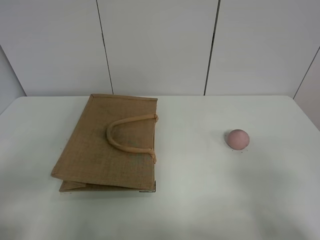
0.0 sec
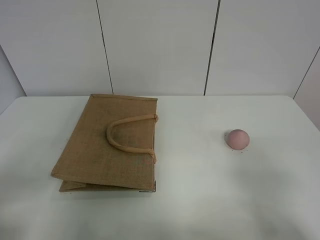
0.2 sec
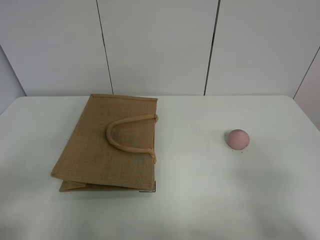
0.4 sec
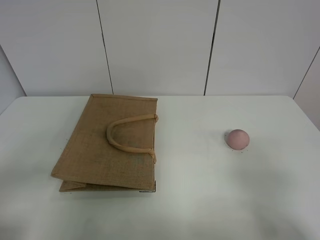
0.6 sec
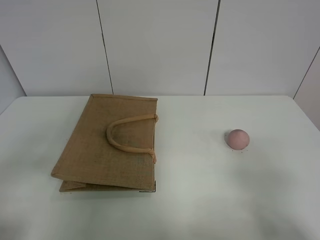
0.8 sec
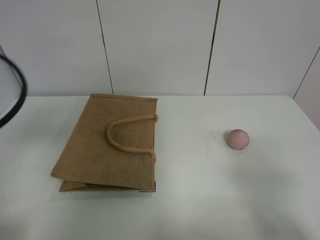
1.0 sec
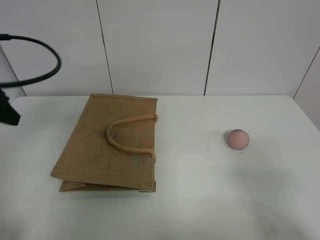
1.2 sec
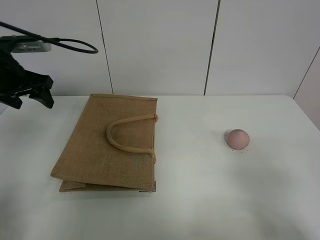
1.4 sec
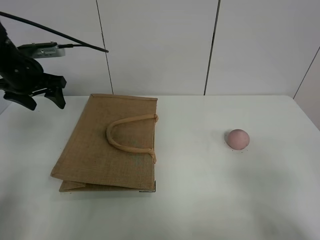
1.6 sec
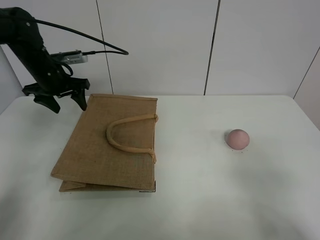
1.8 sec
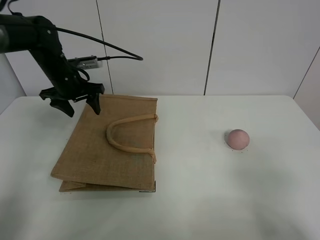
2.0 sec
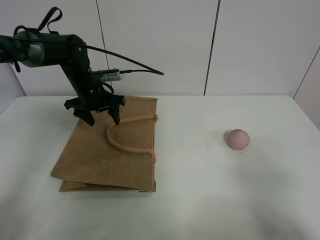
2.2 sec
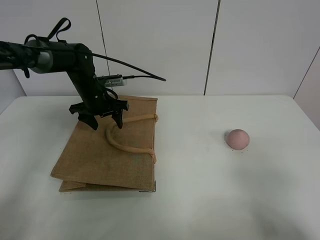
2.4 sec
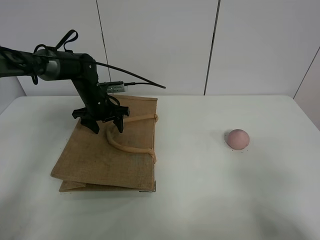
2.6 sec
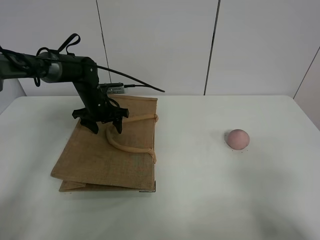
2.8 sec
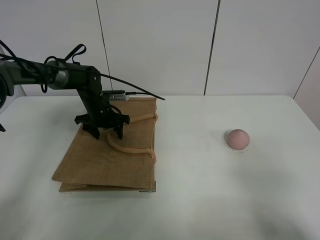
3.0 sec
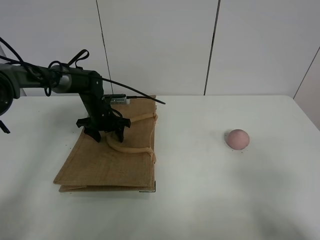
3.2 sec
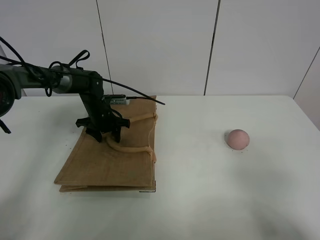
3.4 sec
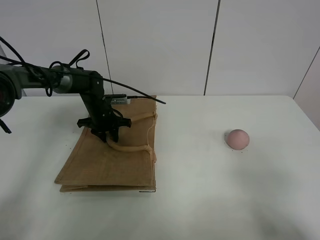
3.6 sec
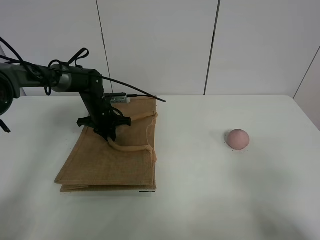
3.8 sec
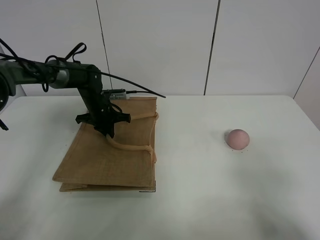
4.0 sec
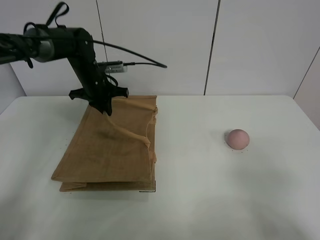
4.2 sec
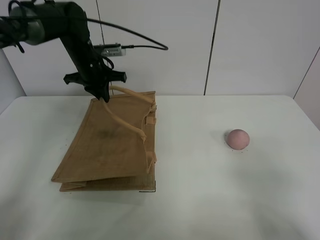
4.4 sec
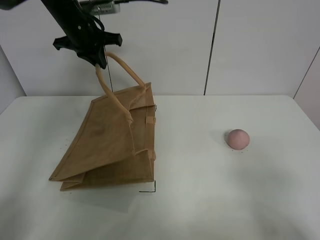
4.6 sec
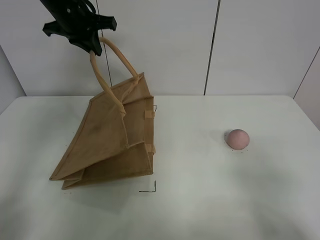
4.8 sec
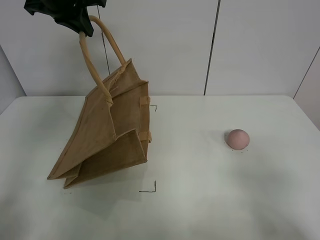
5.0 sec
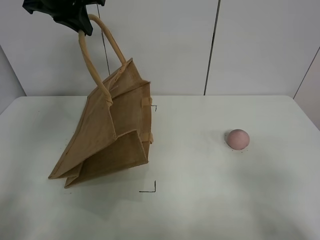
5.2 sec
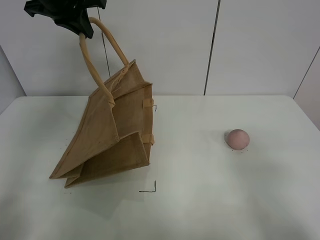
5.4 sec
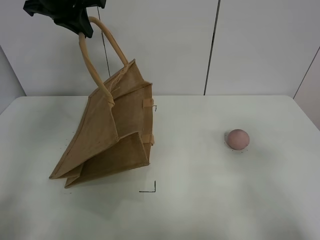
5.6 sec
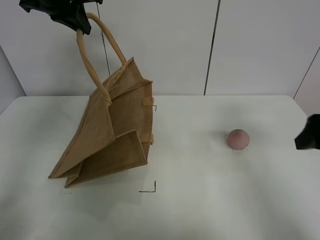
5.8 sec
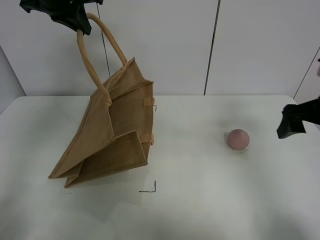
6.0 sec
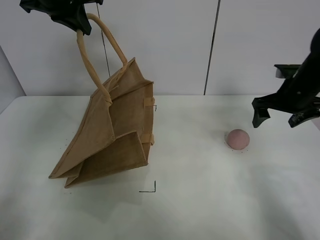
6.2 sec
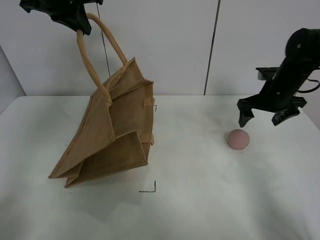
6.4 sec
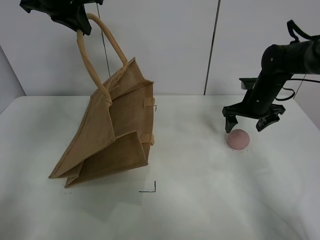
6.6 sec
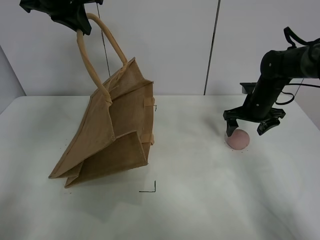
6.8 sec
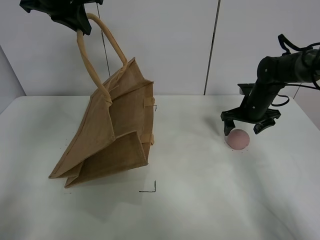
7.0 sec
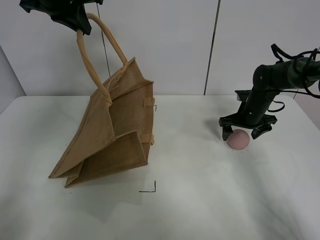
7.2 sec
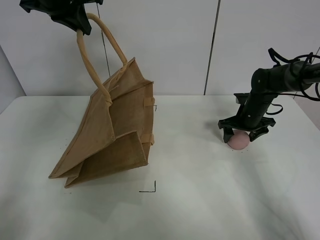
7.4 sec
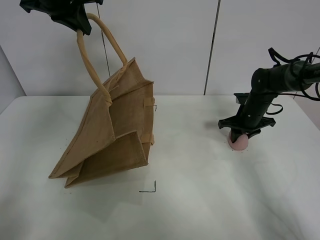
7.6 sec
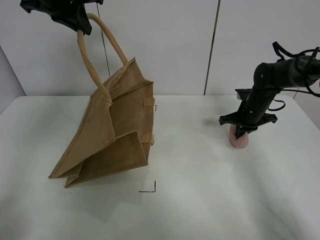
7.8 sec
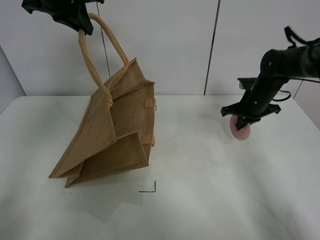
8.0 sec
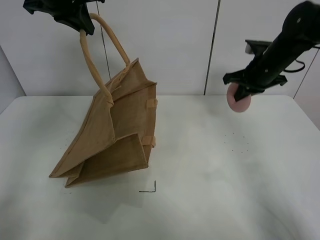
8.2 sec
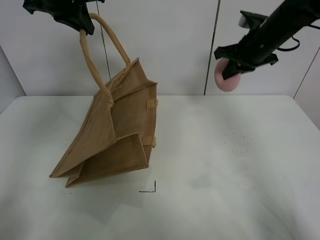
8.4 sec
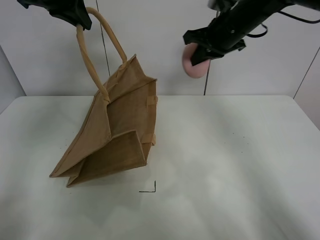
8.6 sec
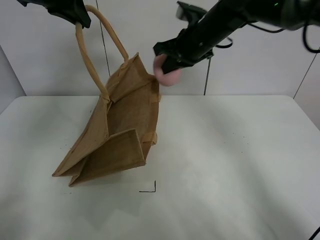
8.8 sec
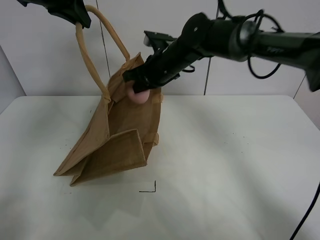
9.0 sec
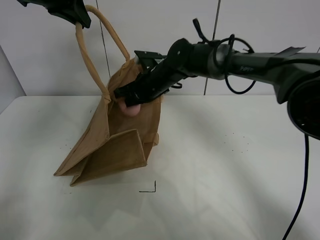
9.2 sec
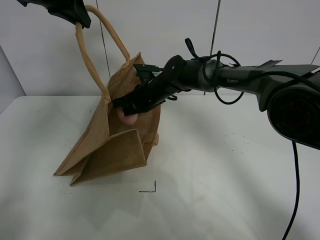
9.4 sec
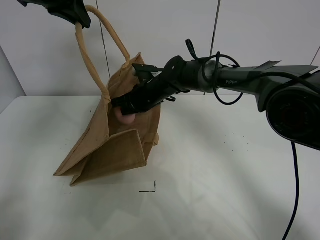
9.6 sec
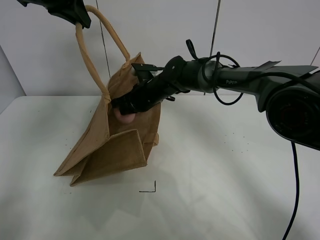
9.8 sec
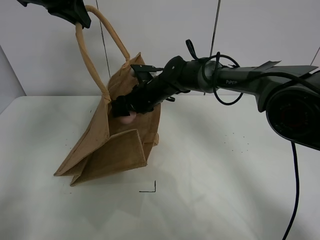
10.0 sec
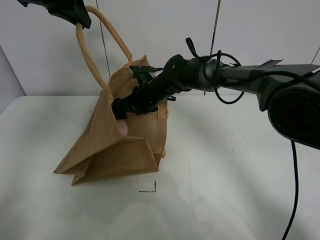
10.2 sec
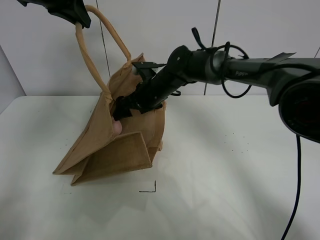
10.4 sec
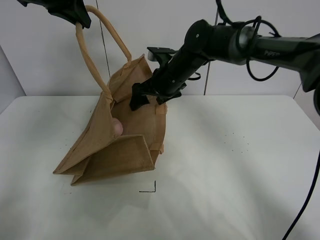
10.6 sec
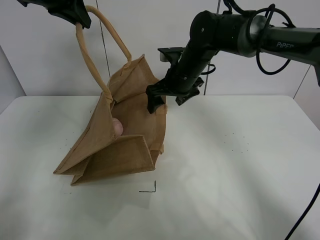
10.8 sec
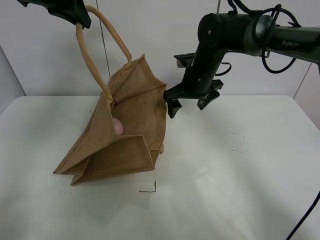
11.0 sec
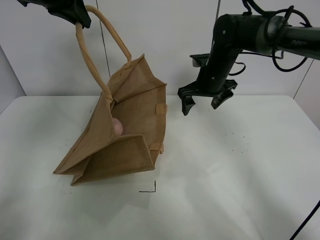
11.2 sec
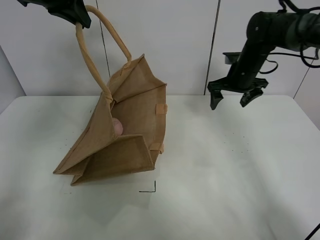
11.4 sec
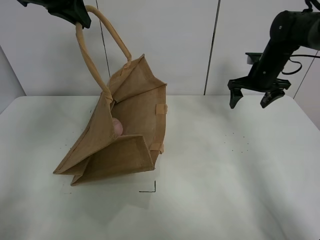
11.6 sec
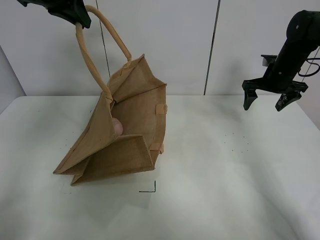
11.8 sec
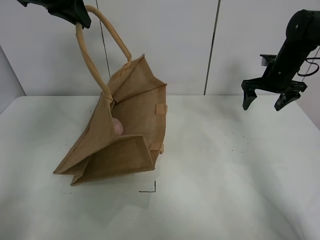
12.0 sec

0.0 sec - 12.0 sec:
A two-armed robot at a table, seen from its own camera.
Task of the whole recording: open the brown linen bag and put the peach in the bag.
Step, 0.0 sec - 5.0 sec: Lift the handbag with left gripper.
Step, 5.2 sec - 7.6 sec: Grasp the peach with right gripper.
Step, 7.8 sec - 10.8 sec: Place the peach in the handbag with right gripper.
0.0 sec - 1.6 sec: The left gripper travels forward by some 40 cm.
1.6 sec - 3.0 sec: The left gripper heads downward and to the right, covering approximately 20 cm.
3.0 sec - 4.4 sec: The left gripper is displaced upward by roughly 15 cm, and closes.
4.4 sec - 6.0 sec: The right gripper goes roughly 25 cm forward. The left gripper moves upward, approximately 15 cm.
6.0 sec - 7.6 sec: The right gripper shifts about 20 cm downward and forward, and closes its fingers.
7.6 sec - 9.0 sec: The right gripper heads to the left and upward, covering approximately 25 cm.
9.0 sec - 10.4 sec: The right gripper opens its fingers.
10.4 sec - 12.0 sec: The right gripper moves to the right, approximately 30 cm.

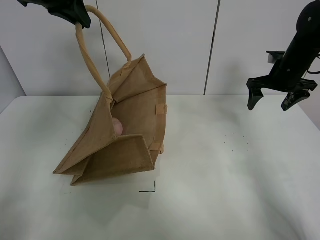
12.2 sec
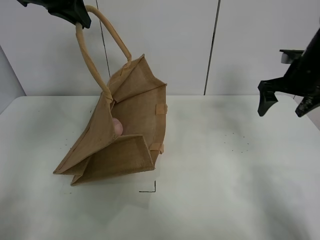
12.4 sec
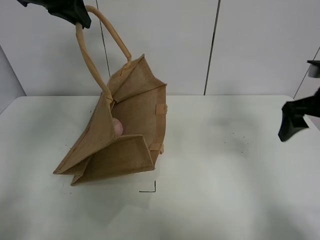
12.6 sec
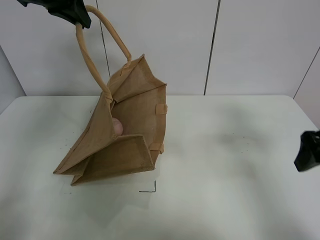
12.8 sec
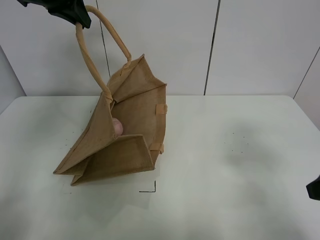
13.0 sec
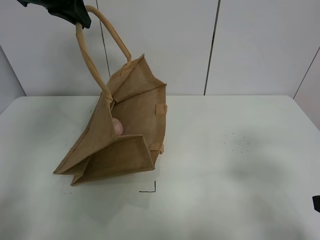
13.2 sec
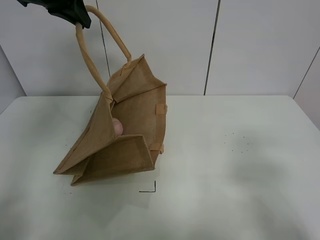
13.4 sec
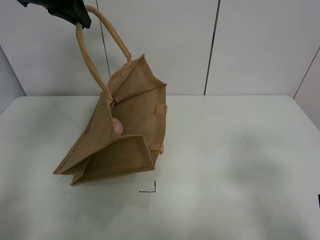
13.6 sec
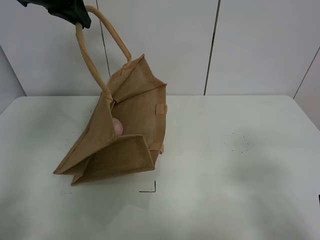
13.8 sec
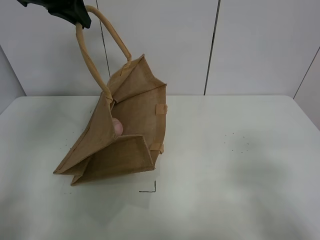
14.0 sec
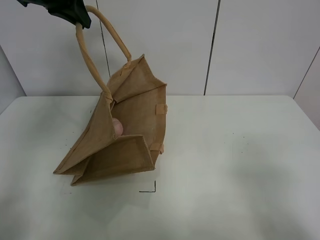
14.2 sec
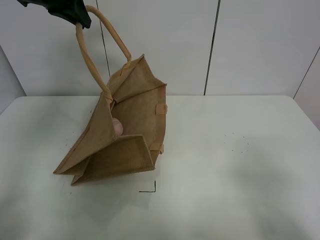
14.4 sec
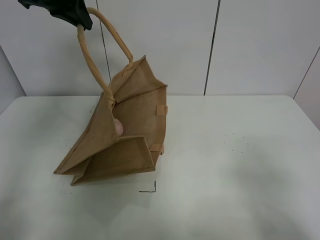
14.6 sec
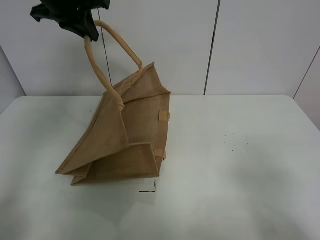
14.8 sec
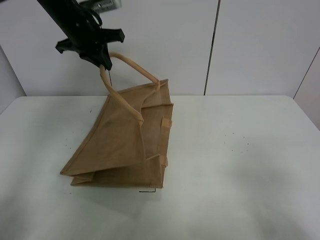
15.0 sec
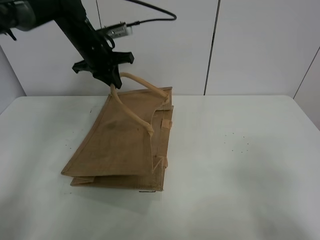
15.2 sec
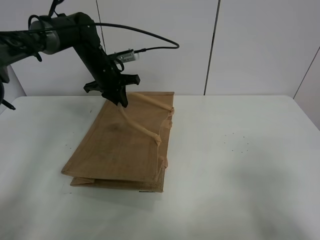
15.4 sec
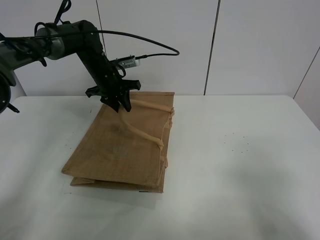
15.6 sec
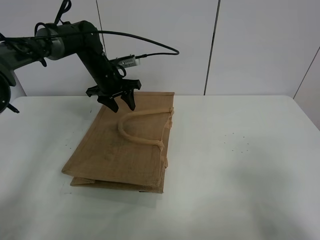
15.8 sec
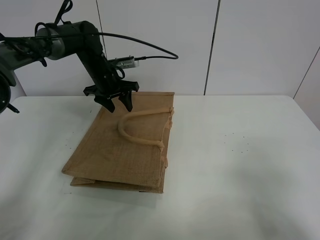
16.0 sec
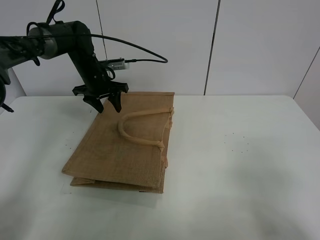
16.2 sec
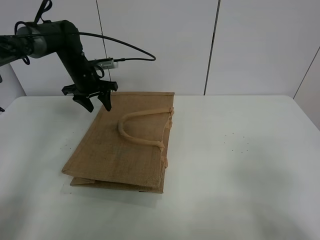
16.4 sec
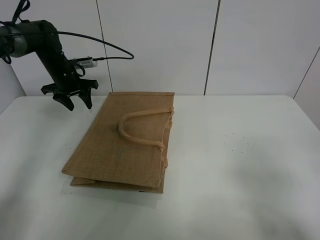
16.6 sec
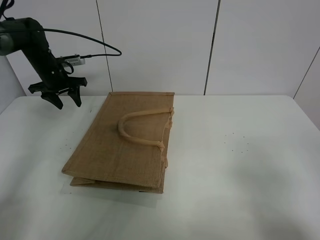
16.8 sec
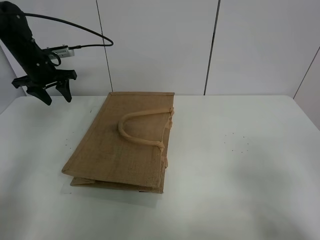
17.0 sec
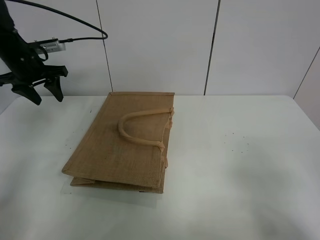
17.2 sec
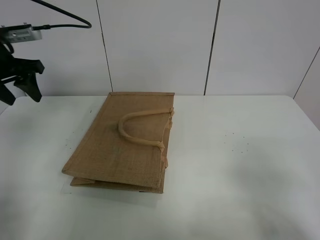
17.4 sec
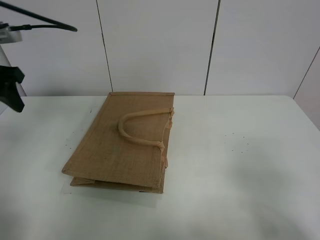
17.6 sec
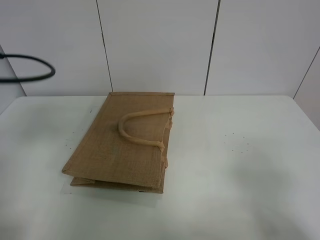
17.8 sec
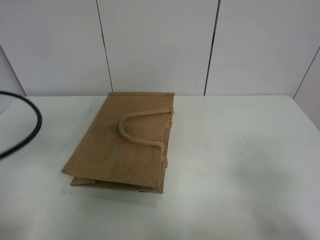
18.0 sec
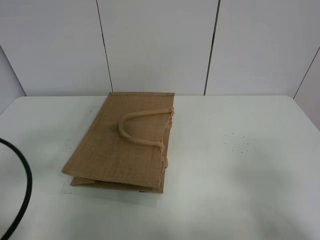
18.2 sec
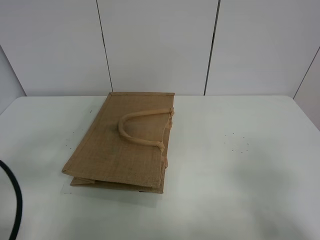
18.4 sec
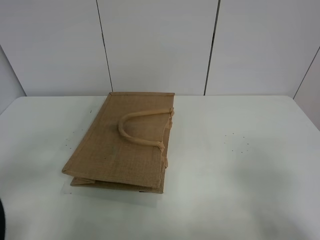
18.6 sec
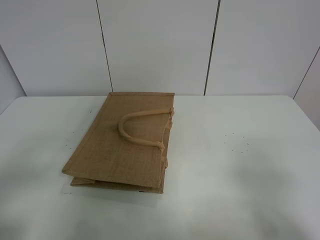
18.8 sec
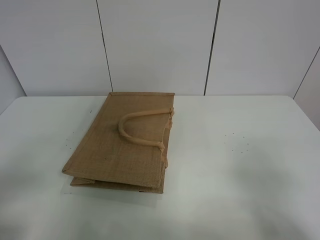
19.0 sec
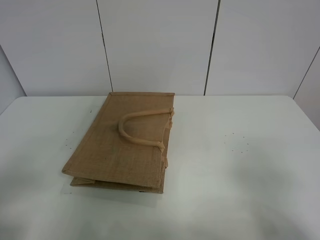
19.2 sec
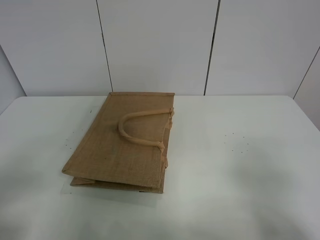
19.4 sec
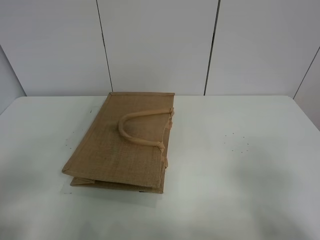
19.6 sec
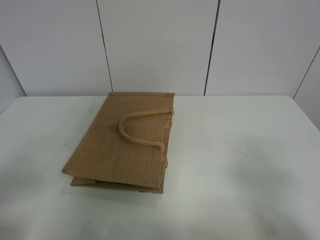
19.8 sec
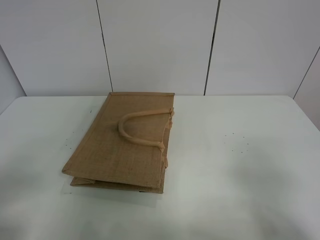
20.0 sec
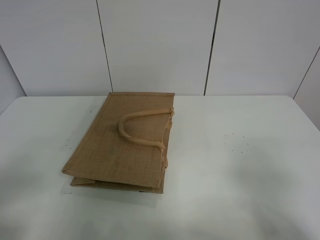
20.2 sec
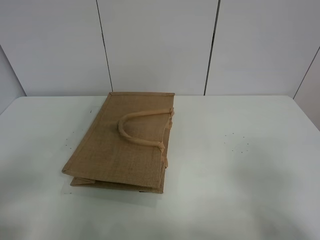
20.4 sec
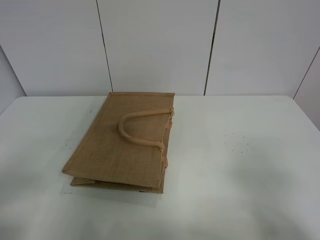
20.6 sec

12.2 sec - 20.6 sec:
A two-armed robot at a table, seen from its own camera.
Task of the whole recording: open the brown linen bag and put the peach in the bag.
Step, 12.2 sec - 16.4 sec: Put down the handbag with left grippe.
12.2 sec - 13.6 sec: The right gripper travels backward by approximately 35 cm.
13.6 sec - 15.0 sec: The right gripper moves backward, approximately 5 cm, while the left gripper goes roughly 15 cm downward and forward.
15.0 sec - 16.4 sec: The left gripper goes roughly 15 cm downward, to the left and forward, and opens.
16.4 sec - 17.8 sec: The left gripper travels backward by some 30 cm.
17.8 sec - 19.2 sec: The left gripper moves backward, some 15 cm.
19.2 sec - 20.6 sec: The two grippers keep their place.
